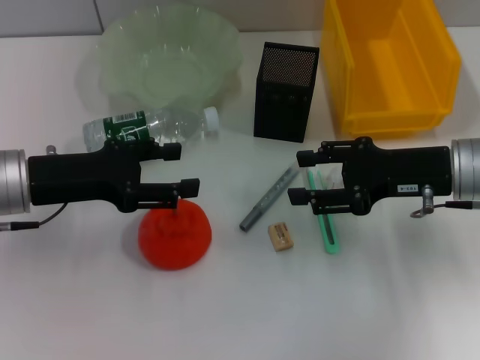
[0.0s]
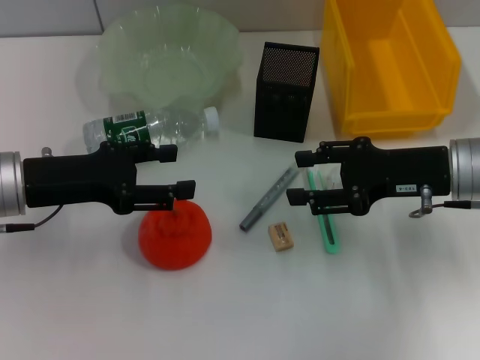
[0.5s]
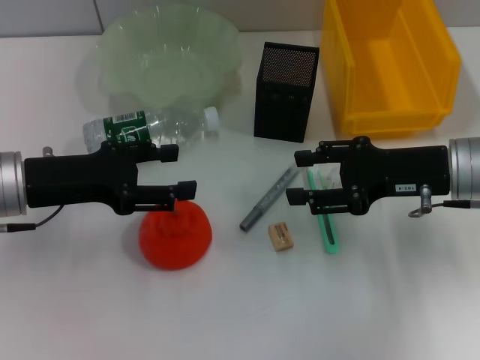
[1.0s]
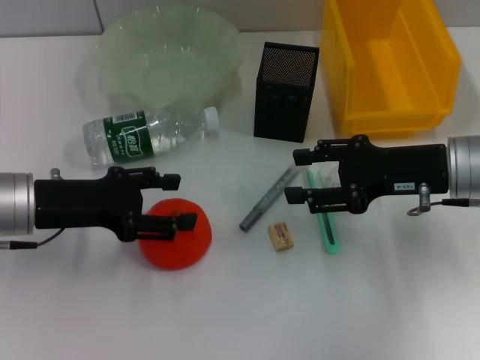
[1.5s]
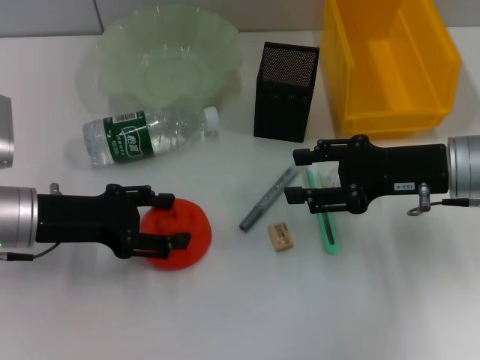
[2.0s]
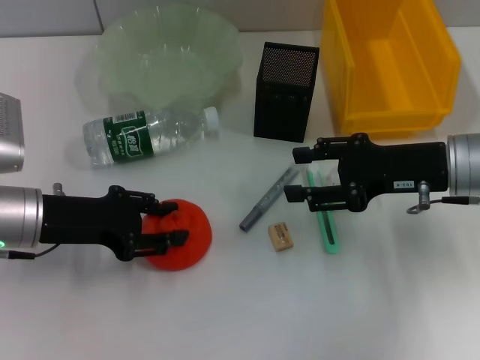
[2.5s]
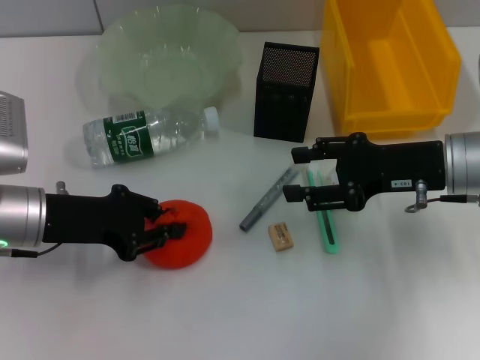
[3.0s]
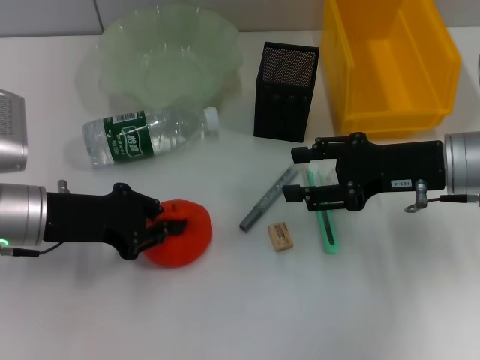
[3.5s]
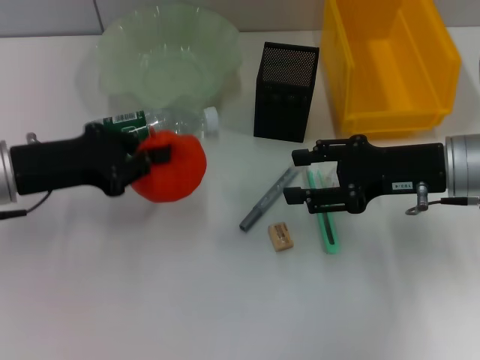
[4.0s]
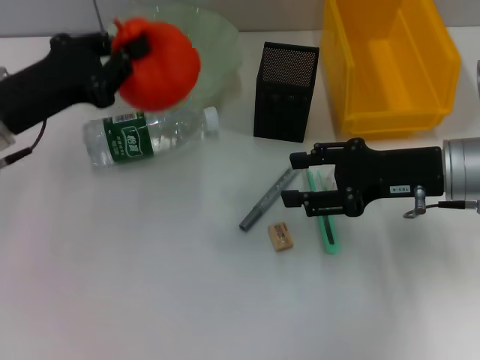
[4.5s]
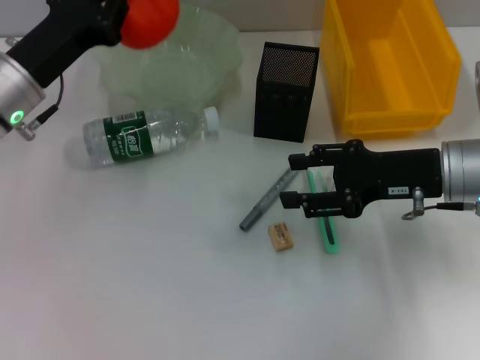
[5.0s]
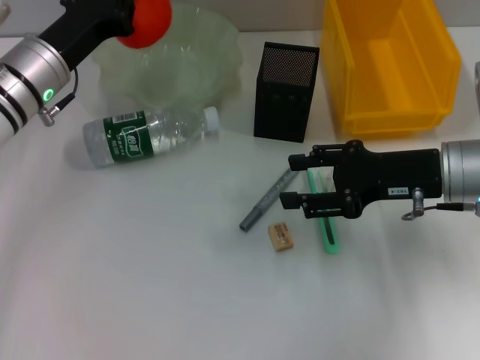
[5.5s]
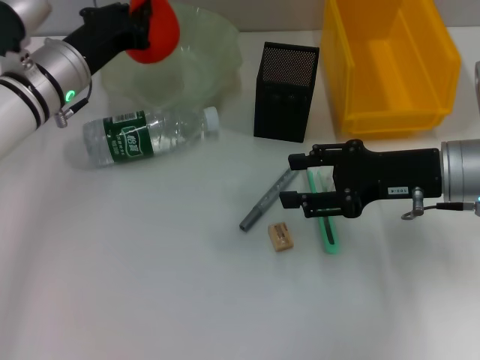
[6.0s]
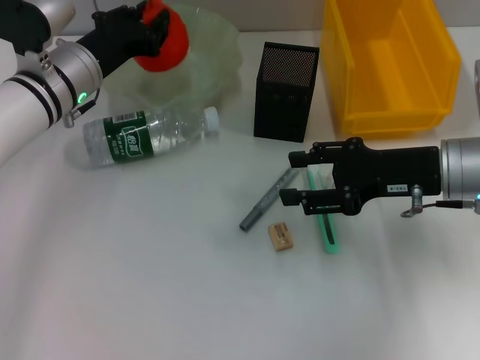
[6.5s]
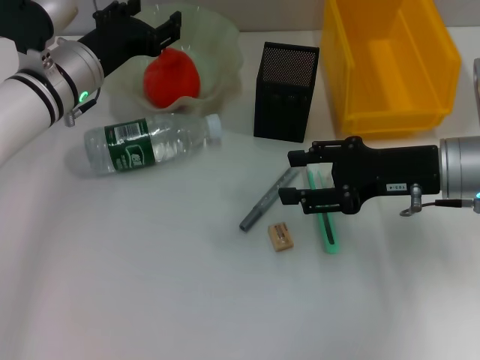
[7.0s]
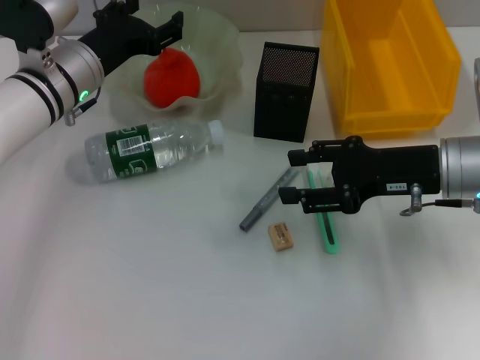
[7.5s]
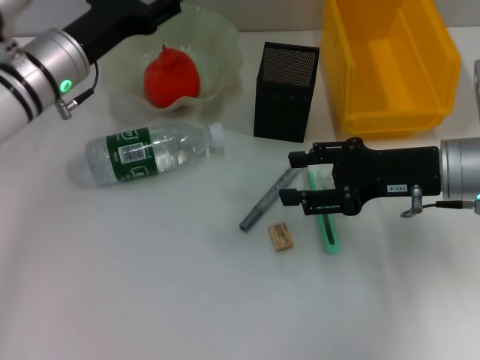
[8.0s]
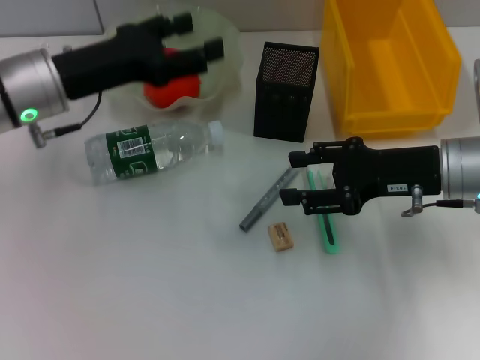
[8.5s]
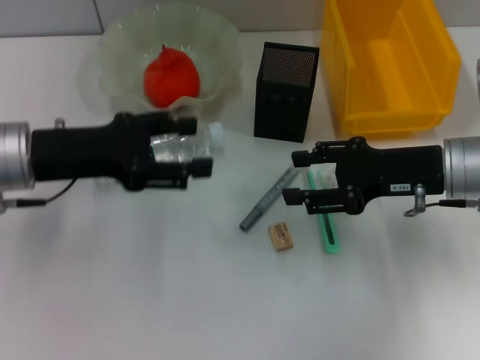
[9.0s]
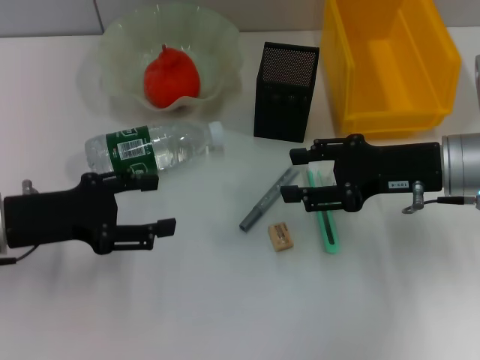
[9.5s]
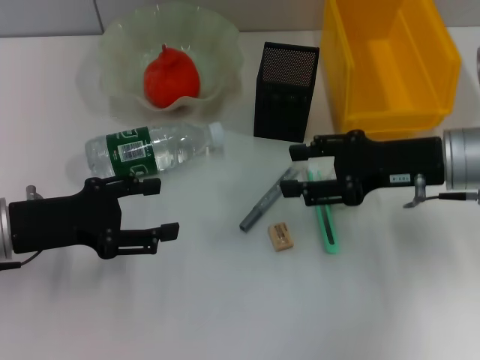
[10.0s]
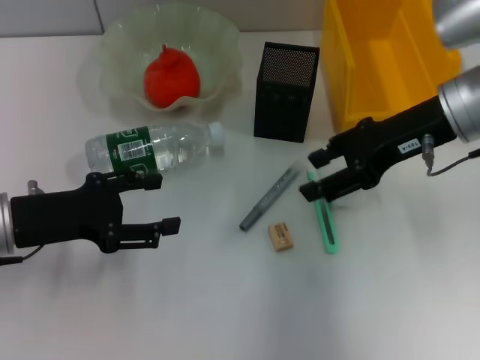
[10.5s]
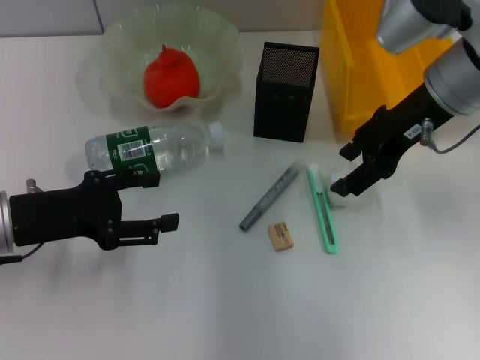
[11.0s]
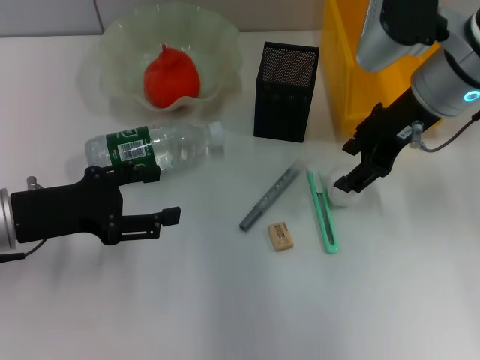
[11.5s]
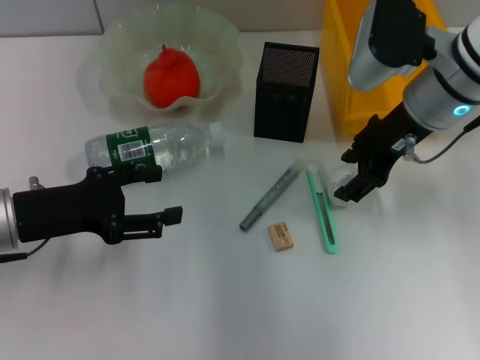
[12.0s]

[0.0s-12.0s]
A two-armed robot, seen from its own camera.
Step, 0.0s to 3.0s: Grab the orange with the left hand.
Step, 3.5s to 6.5s: Place the orange into the fruit bowl with the left hand.
0.0s to 2.0s: The grippers stay close to where they were, moving slightly.
2.0s to 4.0s: The left gripper closes up.
4.0s to 6.0s: The left gripper heads forward and to the right, covering some 10 cm.
6.0s to 8.0s: The left gripper opens up.
8.0s to 10.0s: The left gripper travels backward and to the left by some 15 cm.
10.0s to 12.0s: The right gripper shifts approximately 10 cm forward, upward and to the left.

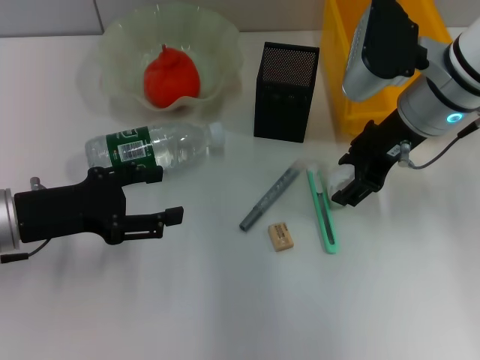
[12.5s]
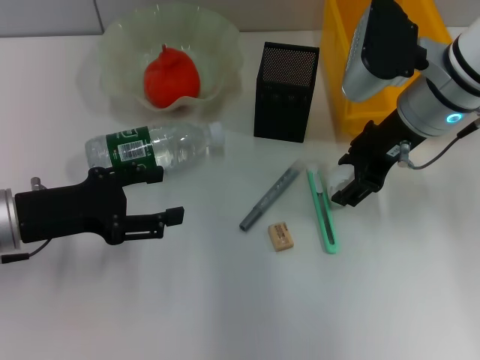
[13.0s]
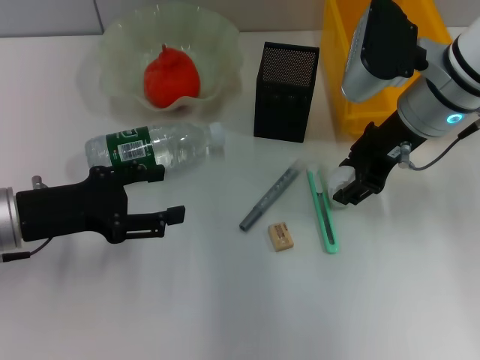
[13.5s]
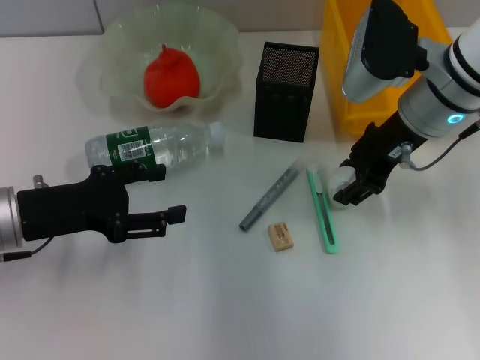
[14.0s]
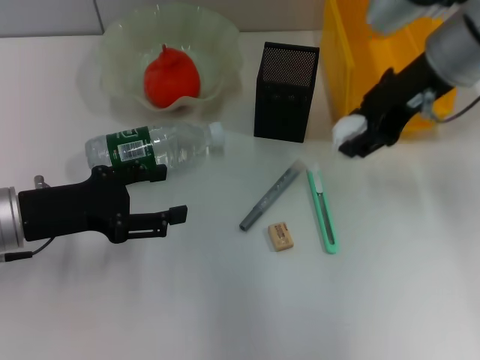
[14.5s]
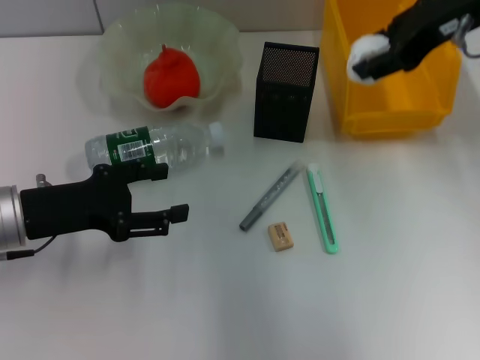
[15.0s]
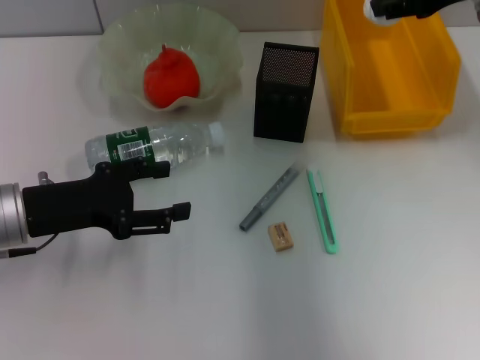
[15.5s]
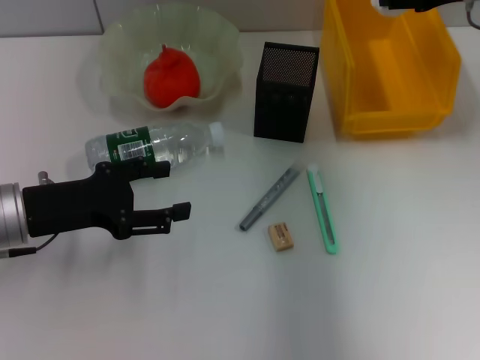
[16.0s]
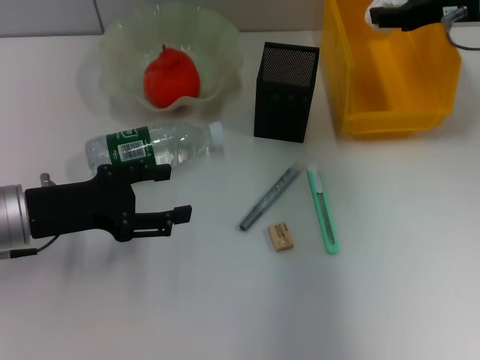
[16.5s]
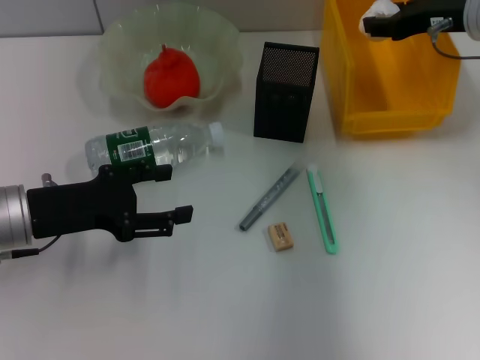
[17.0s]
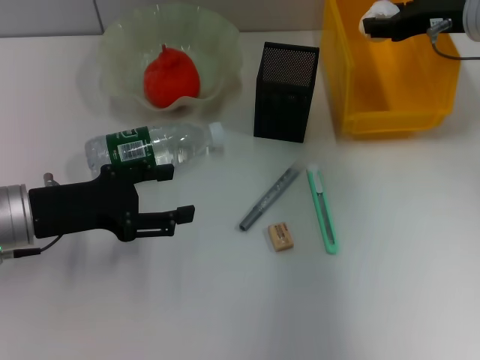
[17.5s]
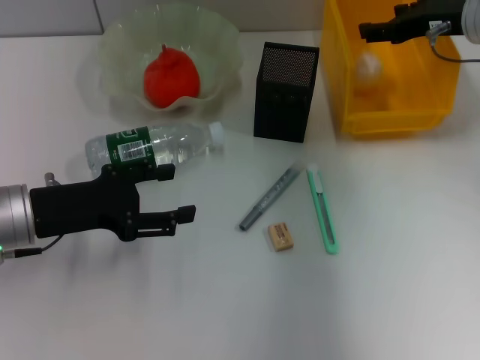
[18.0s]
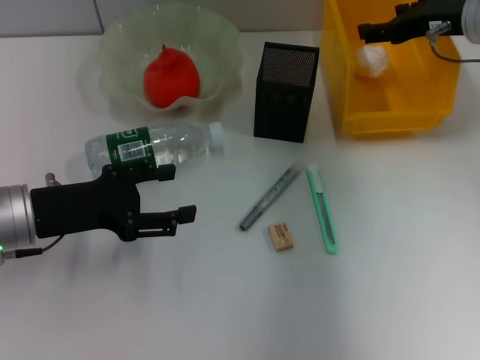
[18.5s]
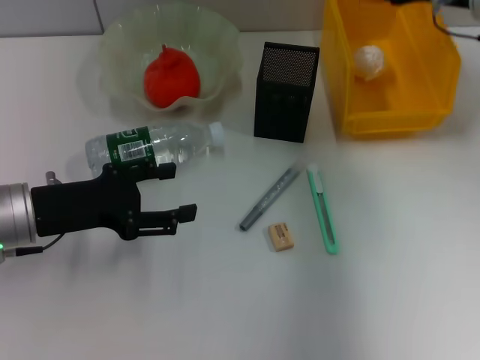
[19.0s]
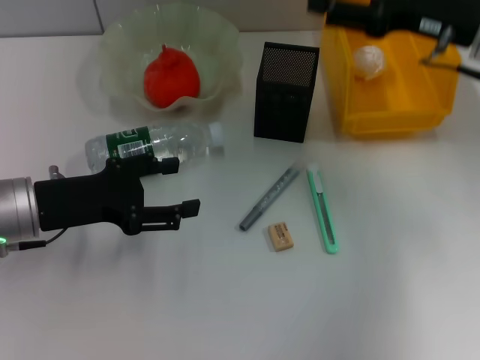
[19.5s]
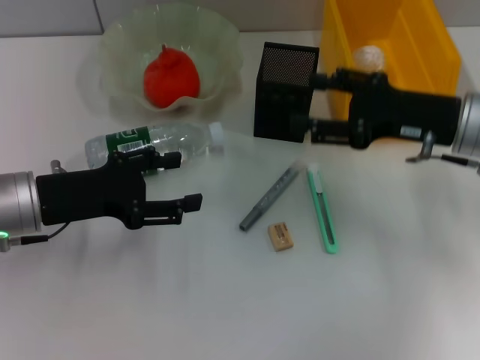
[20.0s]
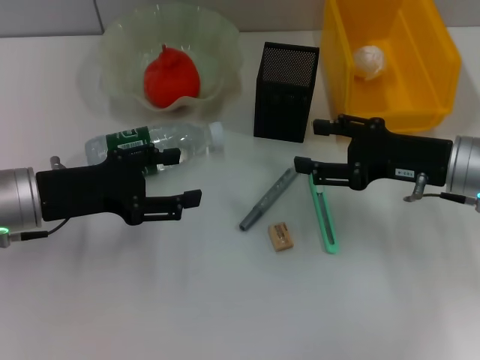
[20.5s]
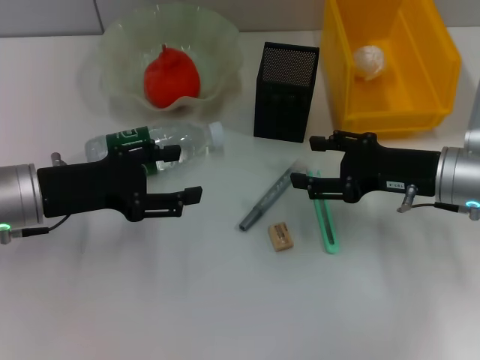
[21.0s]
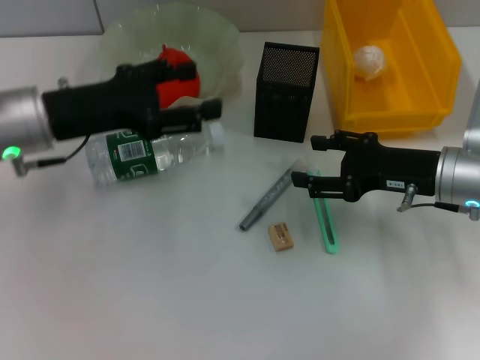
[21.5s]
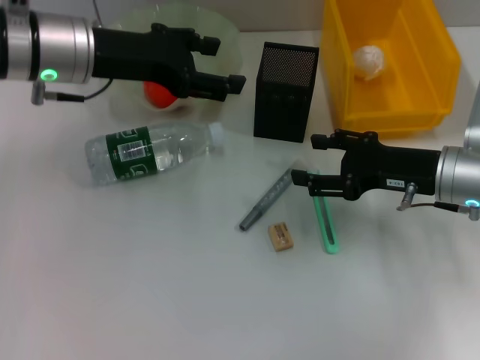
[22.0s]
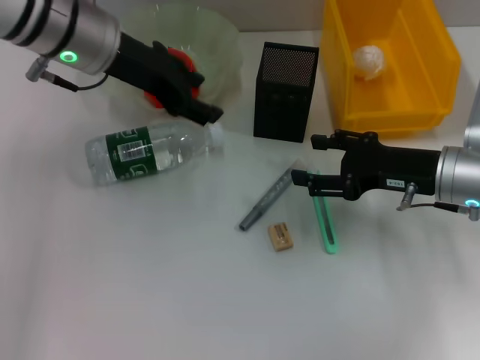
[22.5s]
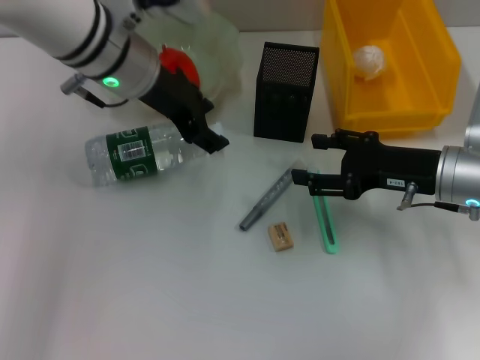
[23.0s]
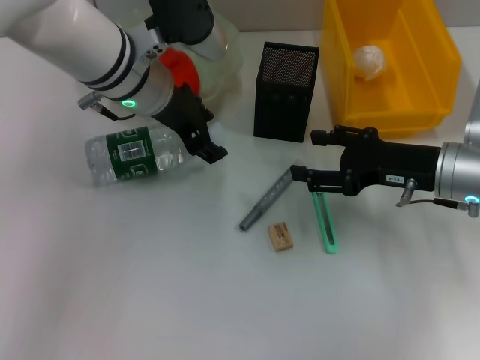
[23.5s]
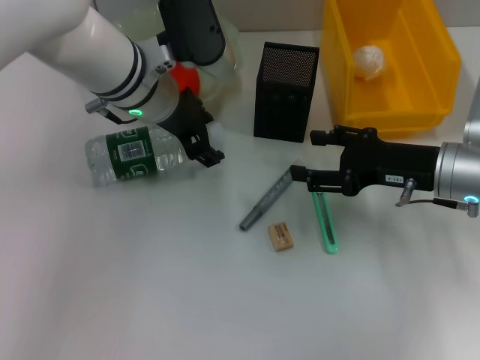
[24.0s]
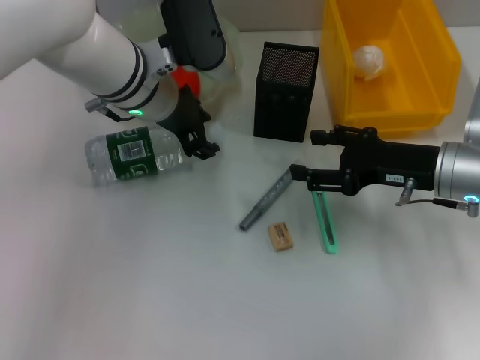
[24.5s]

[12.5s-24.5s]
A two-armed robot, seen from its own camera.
Step, 14.0s to 18.5s: Place the paper ball into the trash can with the right hand.
12.5s to 14.5s: The right gripper moves upward, some 5 cm.
14.5s to 16.5s: The right gripper is displaced to the right and forward by approximately 10 cm.
16.5s to 18.5s: The right gripper opens.
18.5s to 20.5s: The right gripper shifts approximately 15 cm backward and downward.
20.5s to 22.5s: The left gripper goes some 20 cm upward, forward and to the right.
22.5s to 24.5s: The left gripper heads downward and to the right, covering approximately 10 cm.

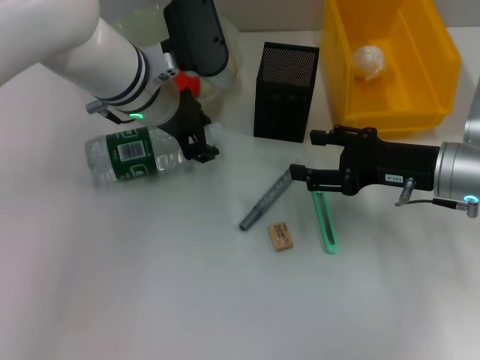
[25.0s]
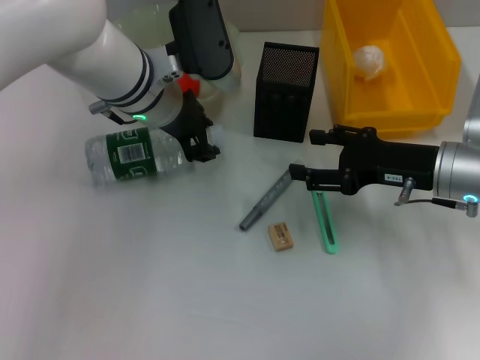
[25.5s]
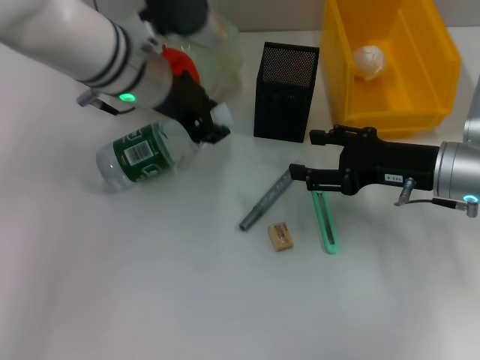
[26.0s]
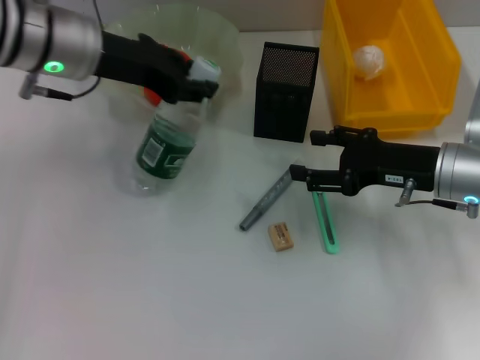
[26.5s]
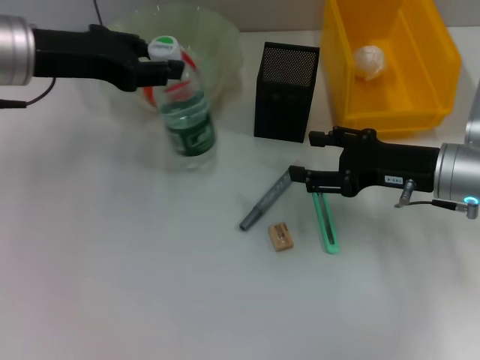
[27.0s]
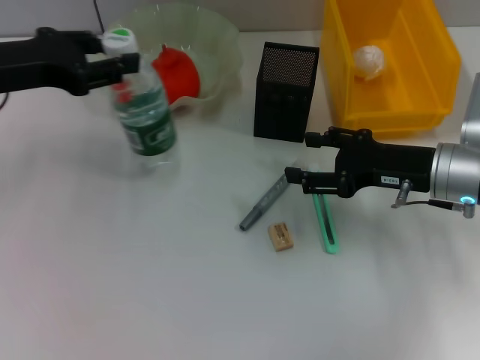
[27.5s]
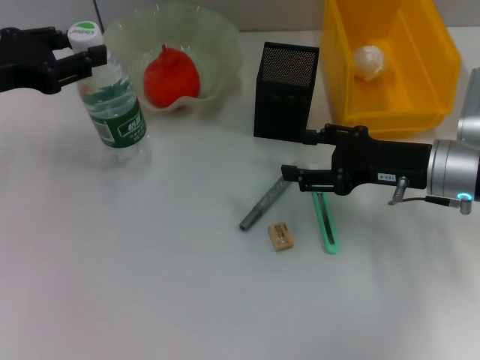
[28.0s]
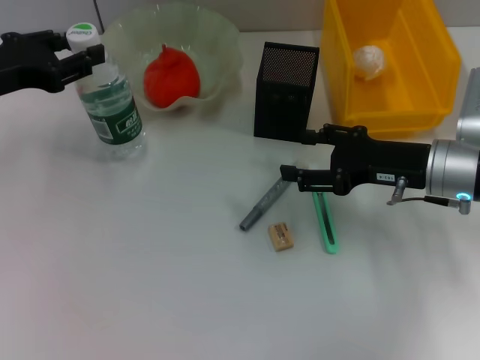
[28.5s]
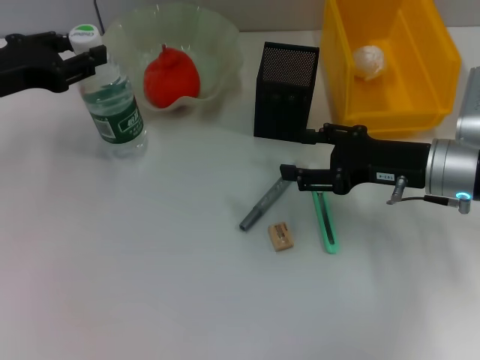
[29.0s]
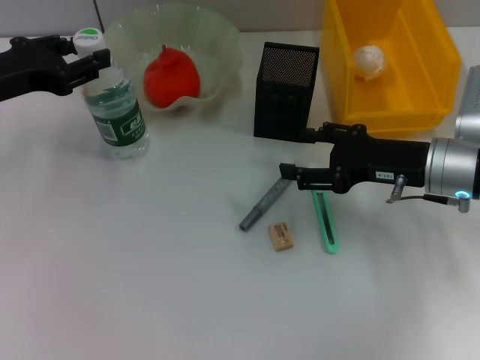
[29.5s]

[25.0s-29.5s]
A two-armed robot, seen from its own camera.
25.0s to 27.0s: The left gripper is displaced to the left and upward by approximately 15 cm.
27.0s to 29.5s: The left gripper travels to the left by about 5 cm.
